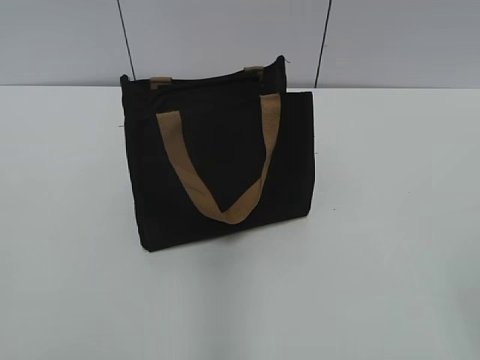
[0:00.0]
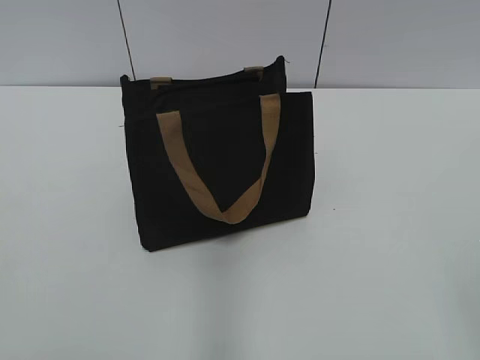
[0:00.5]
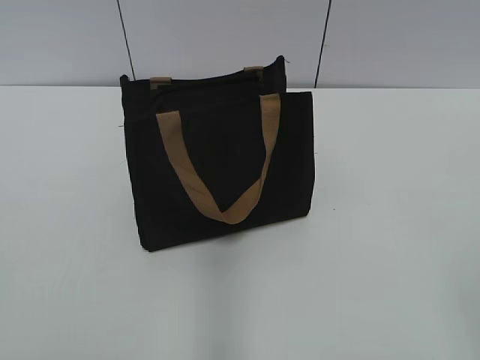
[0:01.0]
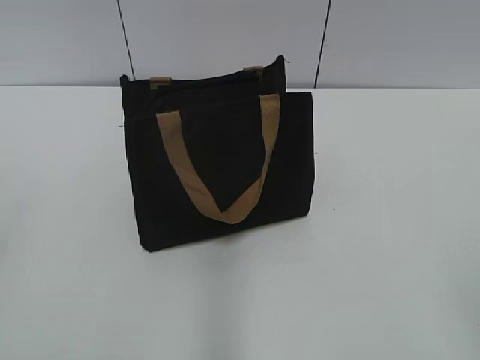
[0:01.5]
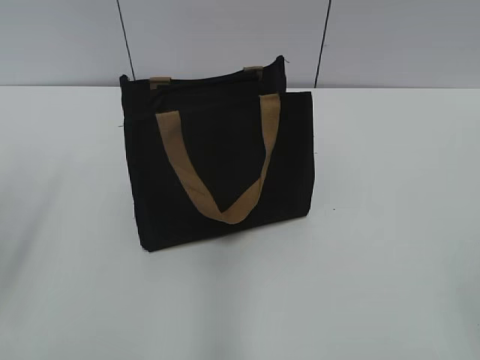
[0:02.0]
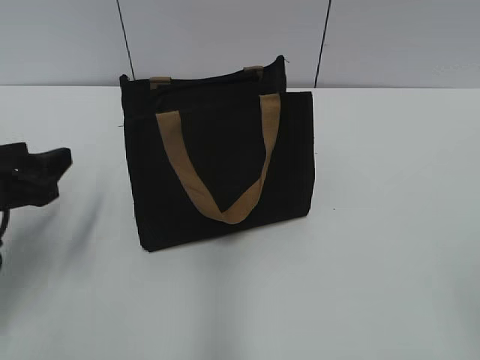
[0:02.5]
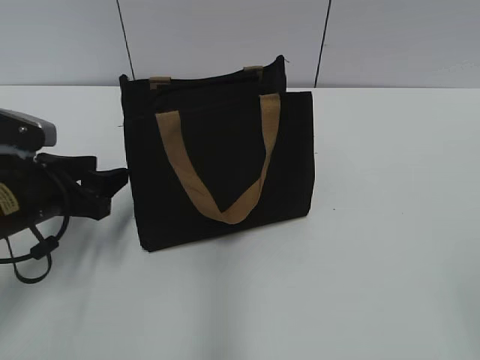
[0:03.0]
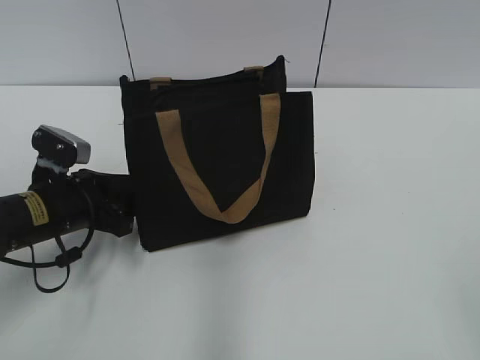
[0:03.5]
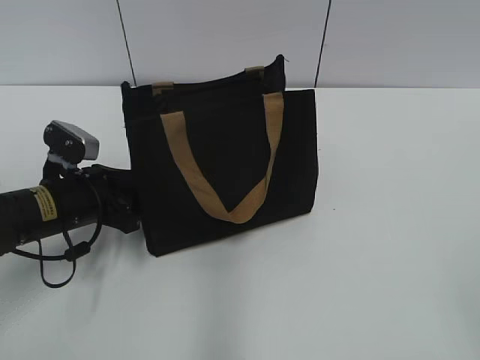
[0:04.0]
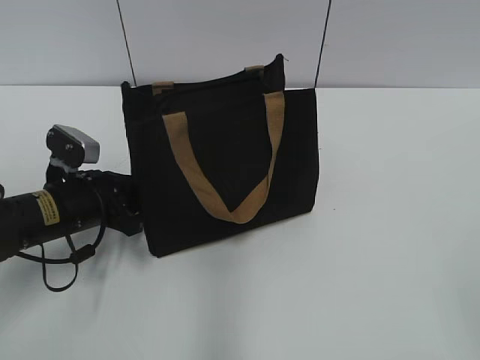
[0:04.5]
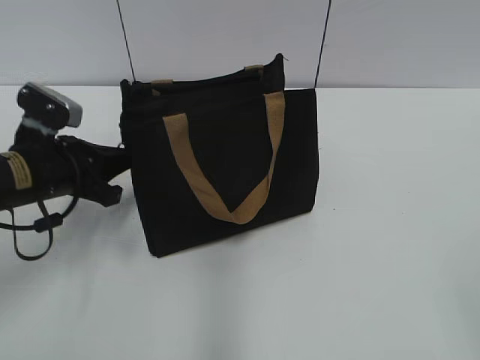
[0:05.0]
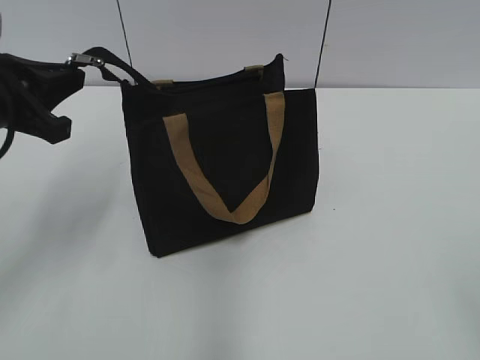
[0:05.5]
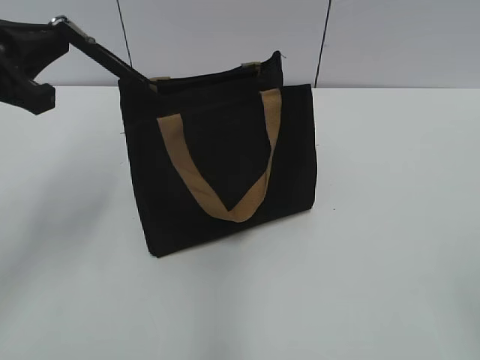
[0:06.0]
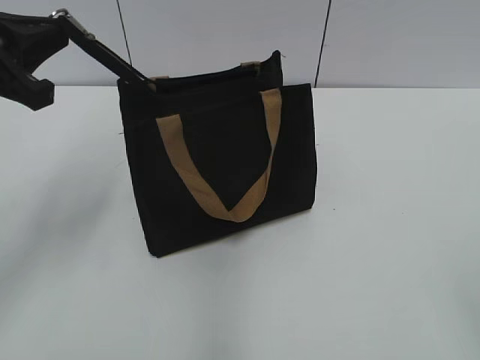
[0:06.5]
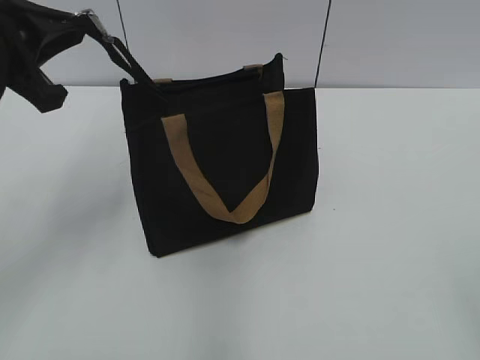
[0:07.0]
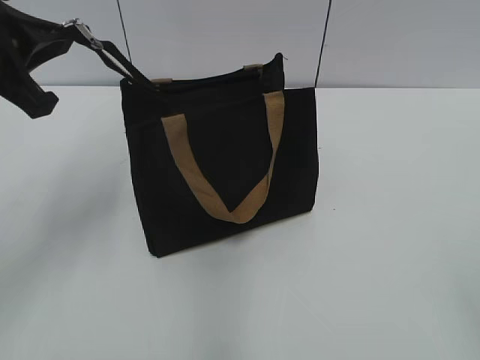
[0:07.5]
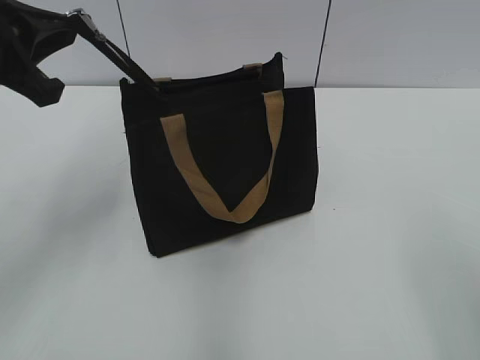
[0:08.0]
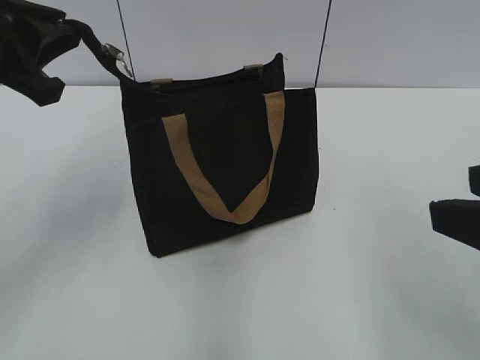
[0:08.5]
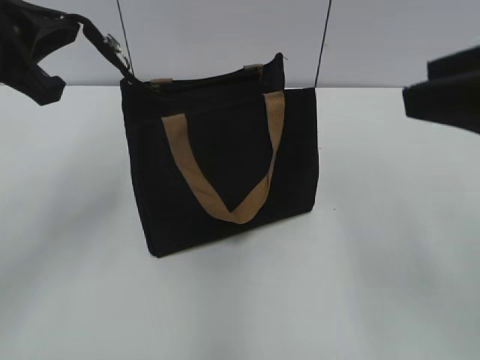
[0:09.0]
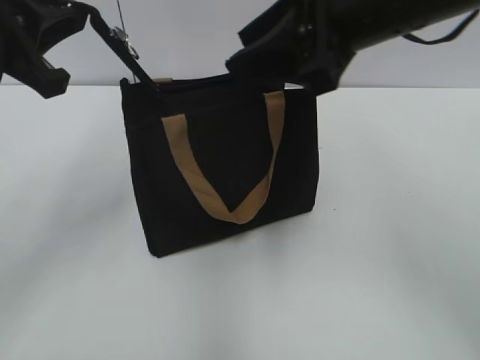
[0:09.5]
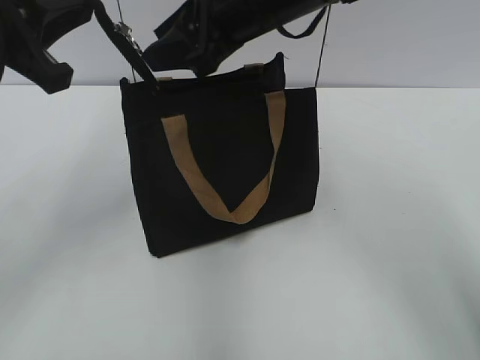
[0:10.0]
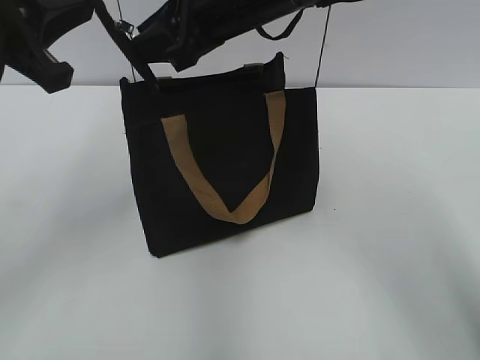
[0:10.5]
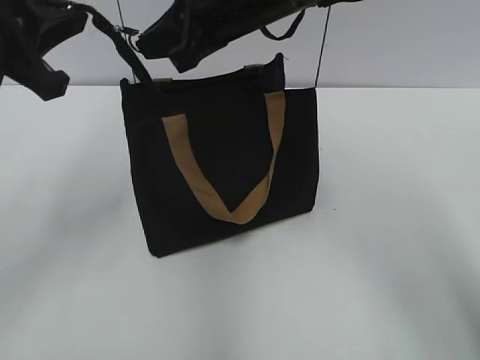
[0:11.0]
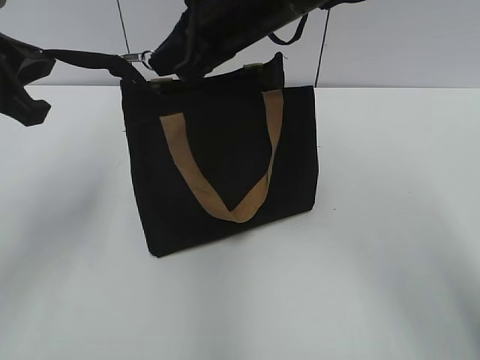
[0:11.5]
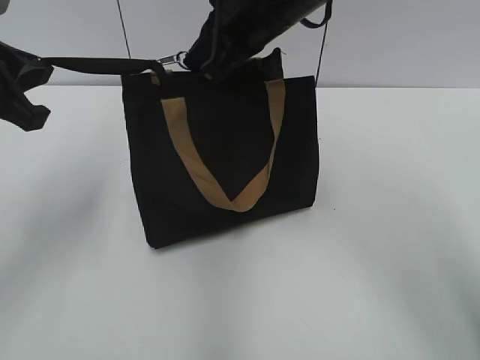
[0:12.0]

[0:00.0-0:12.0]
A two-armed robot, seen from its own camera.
0:02.0 to 0:04.0: The left gripper moves downward, forward and to the right, about 25 cm.
0:04.0 to 0:06.0: The left gripper shifts some 20 cm upward, and closes up.
0:06.0 to 0:08.0: The right gripper moves roughly 5 cm.
0:08.0 to 0:10.0: The right gripper goes approximately 40 cm forward and to the left.
0:10.0 to 0:12.0: The right gripper closes.

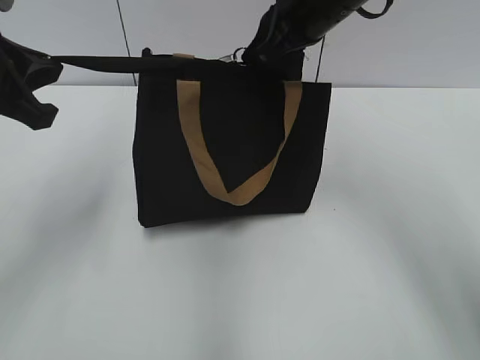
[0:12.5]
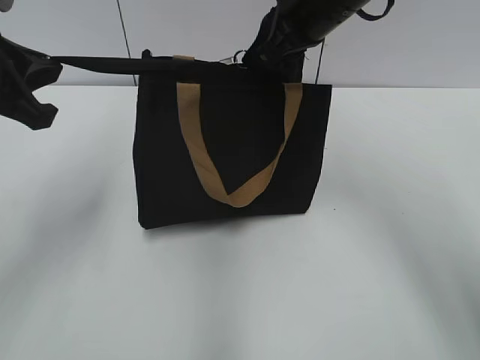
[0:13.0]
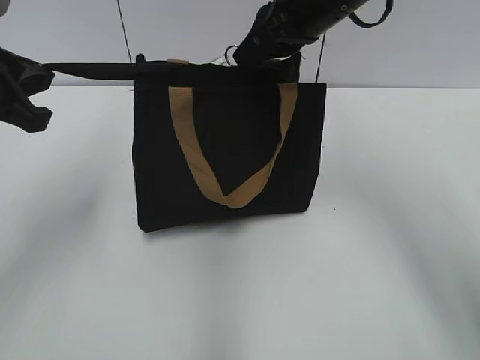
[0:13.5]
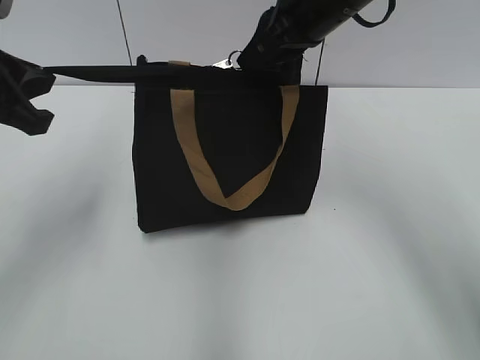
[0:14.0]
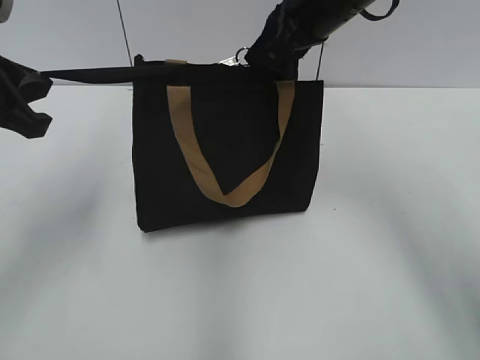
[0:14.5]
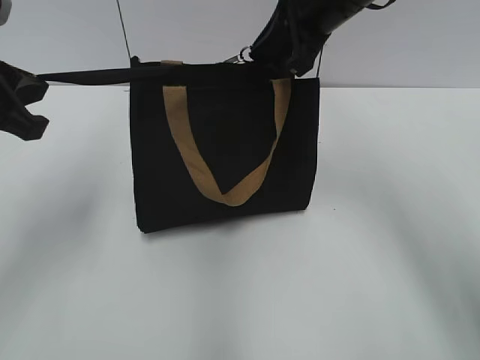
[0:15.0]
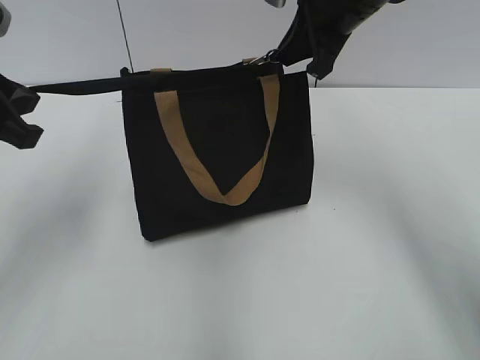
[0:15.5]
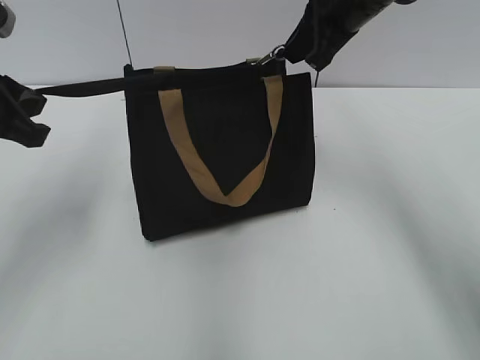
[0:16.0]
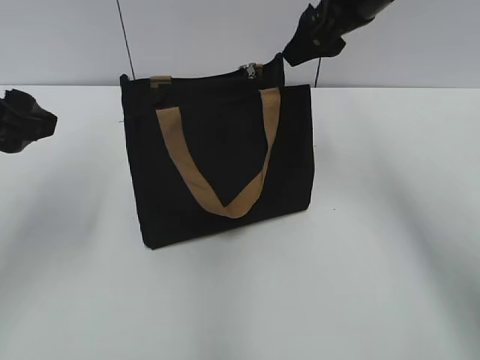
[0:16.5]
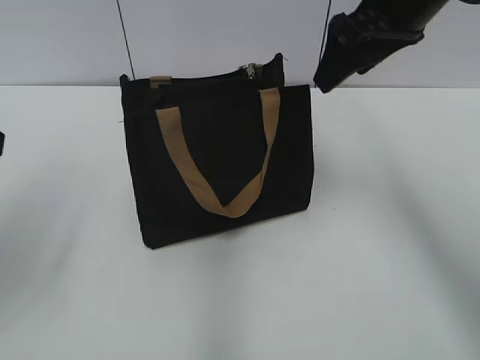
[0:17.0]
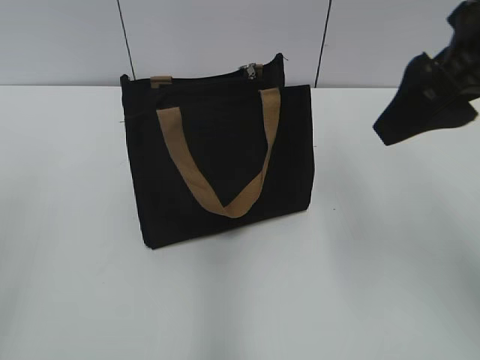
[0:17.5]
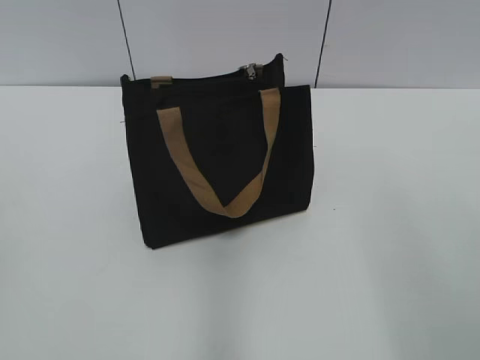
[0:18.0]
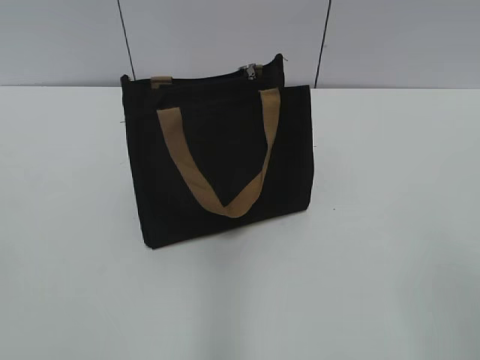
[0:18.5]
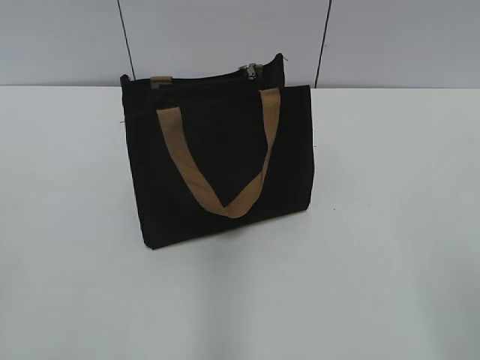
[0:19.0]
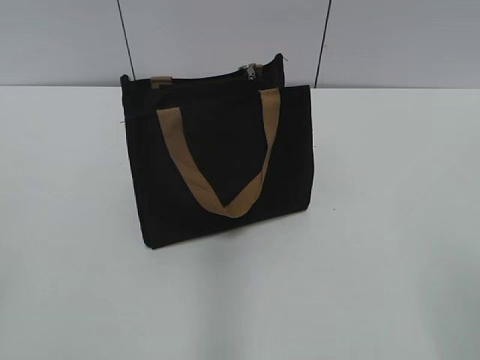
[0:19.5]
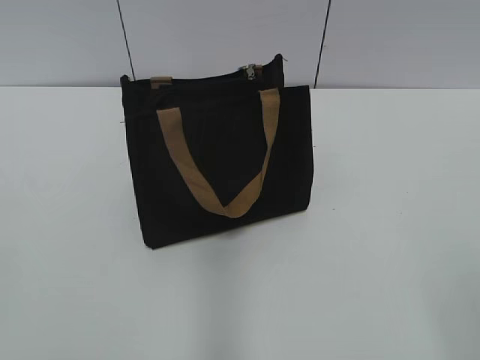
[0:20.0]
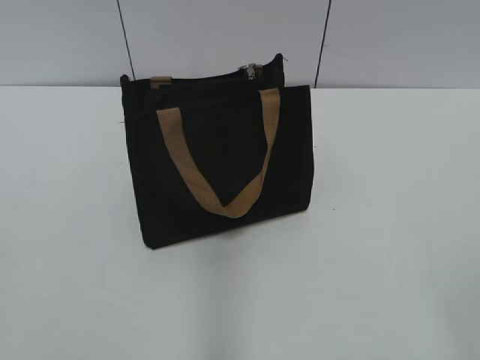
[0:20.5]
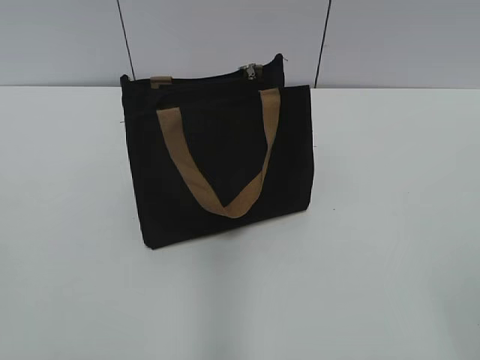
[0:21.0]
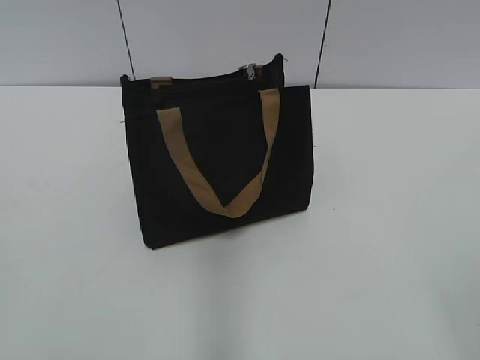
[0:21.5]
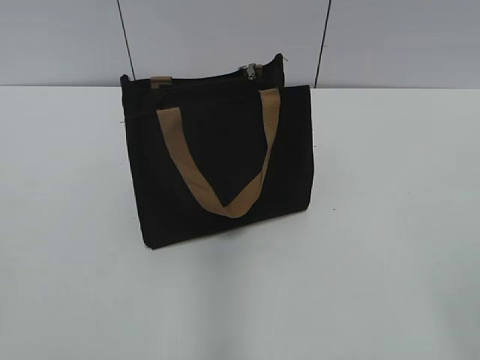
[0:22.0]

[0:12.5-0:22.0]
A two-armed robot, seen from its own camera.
Step, 0:12.5 to 0:16.0: Zip up the bag with your right hand.
0:12.5 to 0:14.5: The grippers move only a little.
0:14.5 to 0:16.5: The right gripper opens up. The left gripper opens its fingers.
0:16.5 to 0:18.0: Both grippers travel together backward, approximately 25 cm.

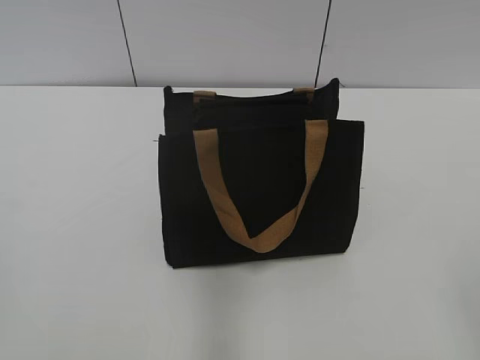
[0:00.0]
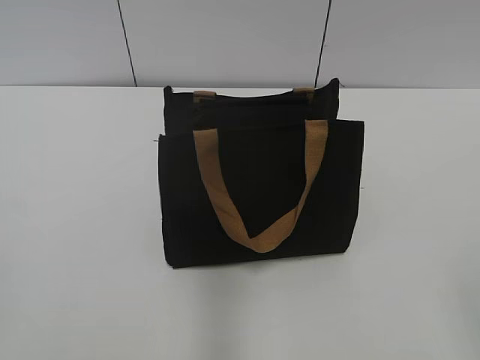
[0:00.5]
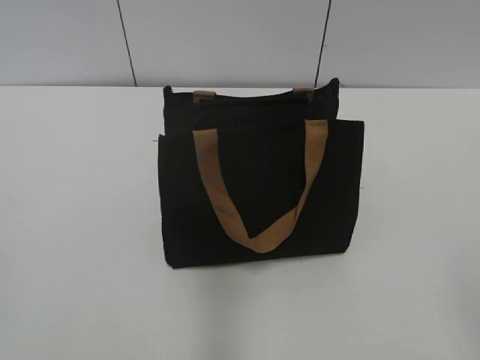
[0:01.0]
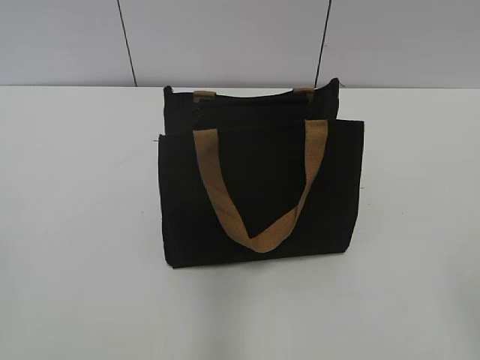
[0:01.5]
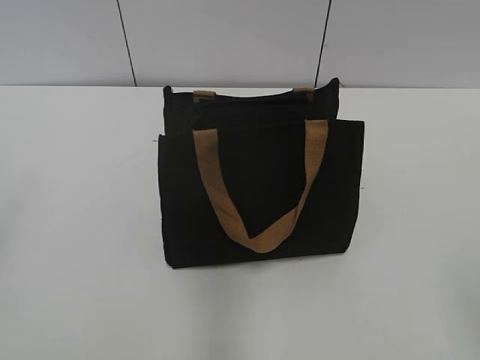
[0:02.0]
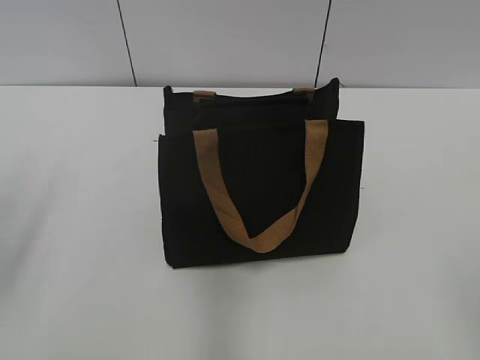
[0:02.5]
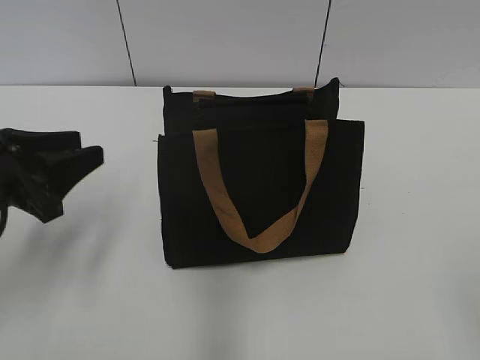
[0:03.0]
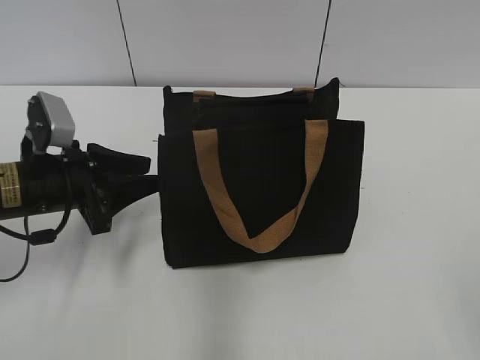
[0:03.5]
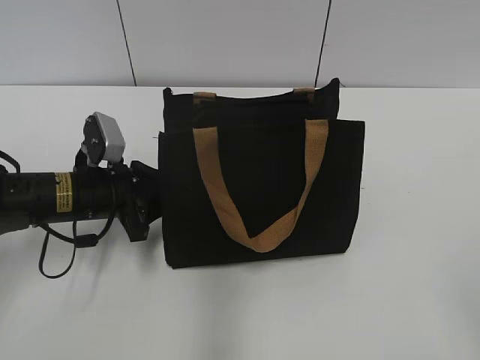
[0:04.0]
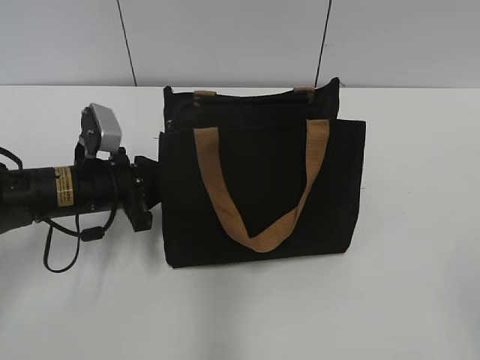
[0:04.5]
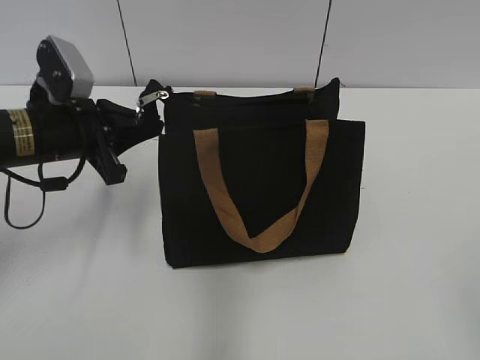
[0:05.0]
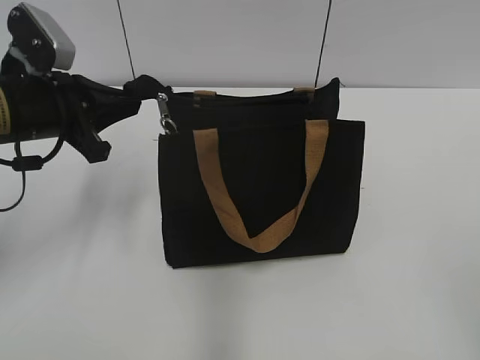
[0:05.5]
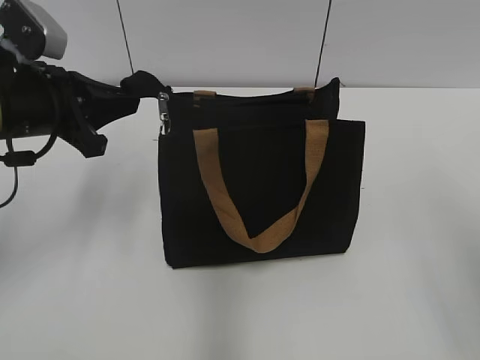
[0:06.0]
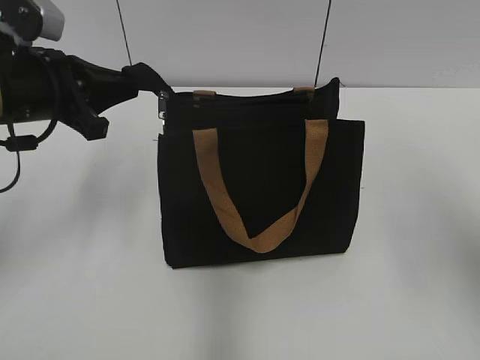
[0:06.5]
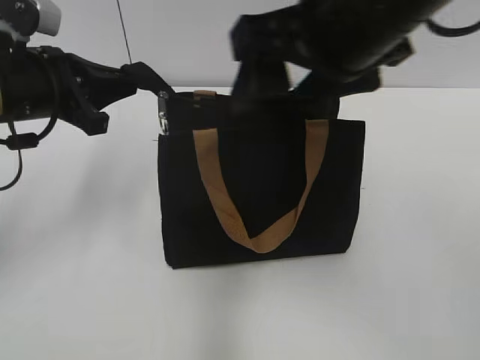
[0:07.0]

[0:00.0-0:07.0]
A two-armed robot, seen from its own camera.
0:02.0 to 0:03.5: The left gripper travels forward, downward and to the right by approximately 30 cm.
0:03.5 to 0:05.0: The left gripper shifts by approximately 5 cm, and closes.
0:05.0 to 0:07.0: The left gripper travels upward by about 5 cm. Meanwhile the right gripper heads forward and to the left, covering some 30 cm.
